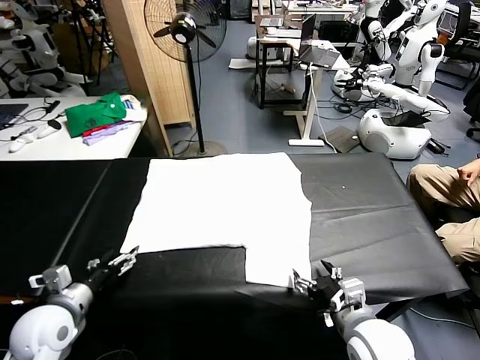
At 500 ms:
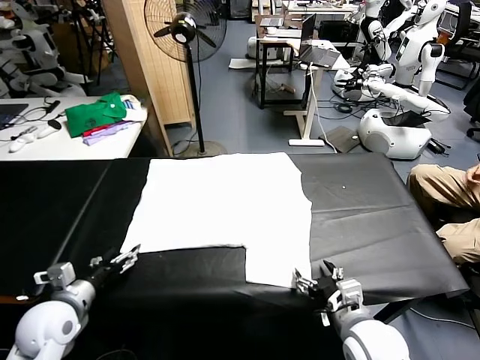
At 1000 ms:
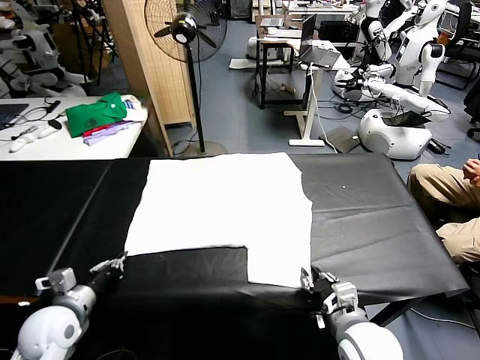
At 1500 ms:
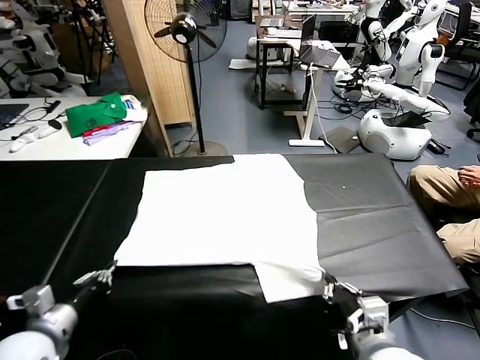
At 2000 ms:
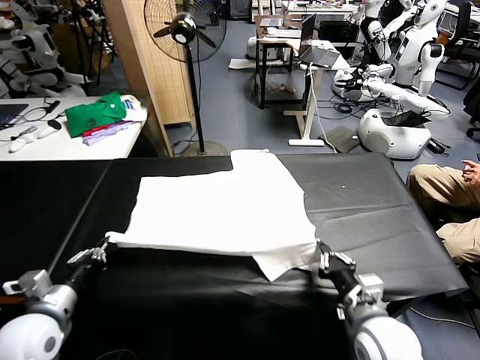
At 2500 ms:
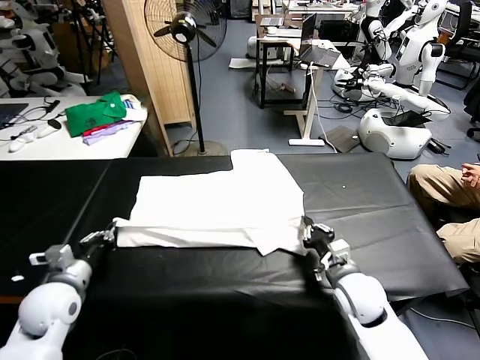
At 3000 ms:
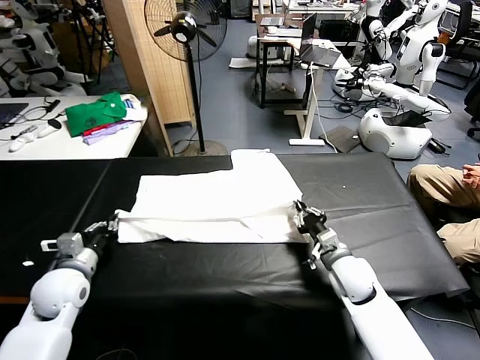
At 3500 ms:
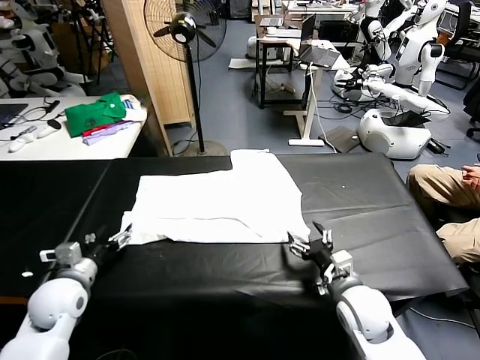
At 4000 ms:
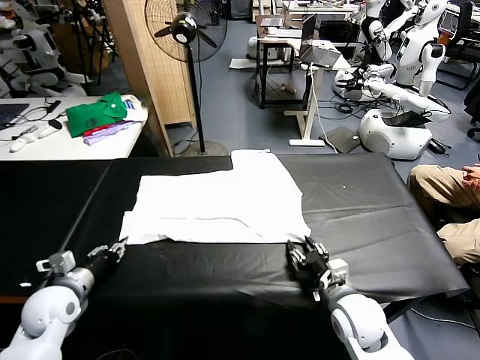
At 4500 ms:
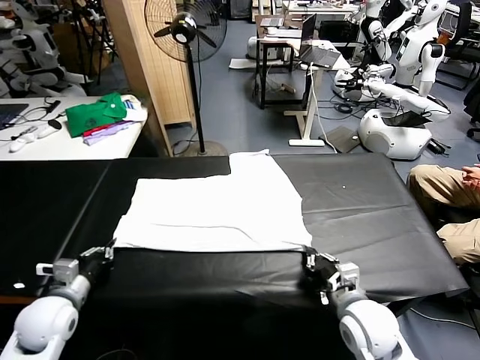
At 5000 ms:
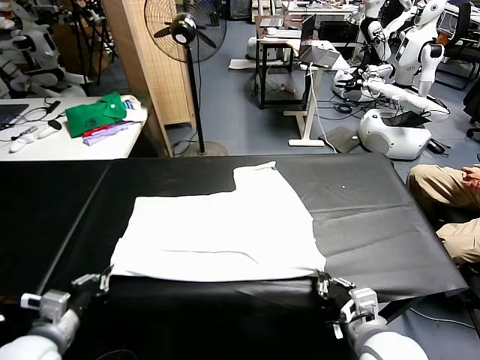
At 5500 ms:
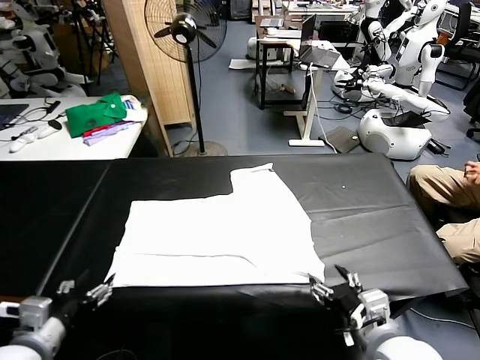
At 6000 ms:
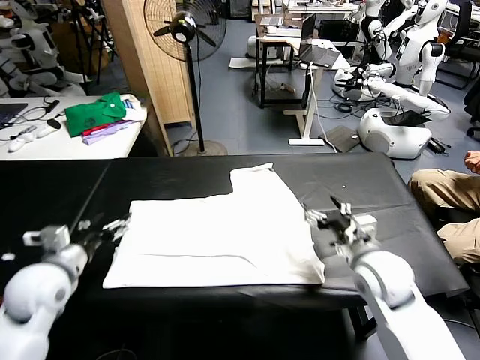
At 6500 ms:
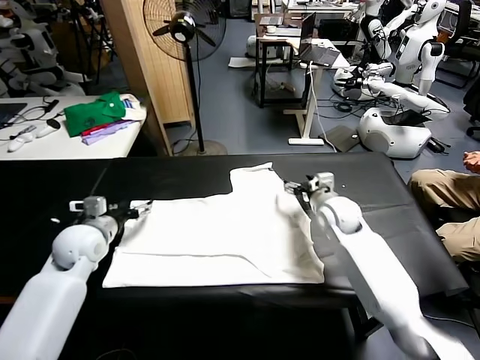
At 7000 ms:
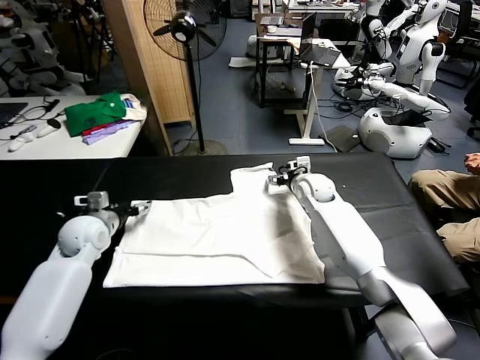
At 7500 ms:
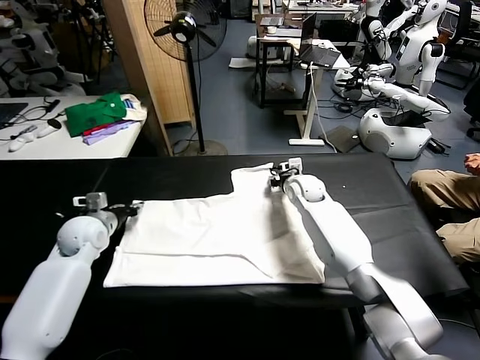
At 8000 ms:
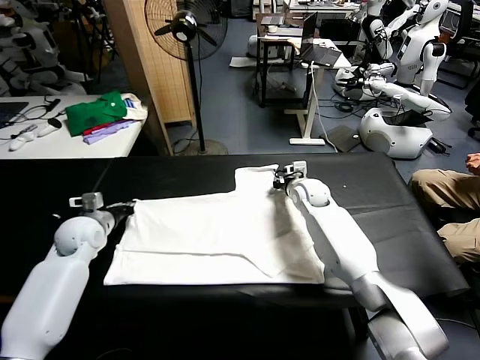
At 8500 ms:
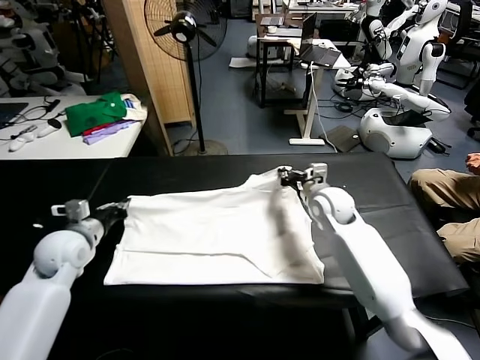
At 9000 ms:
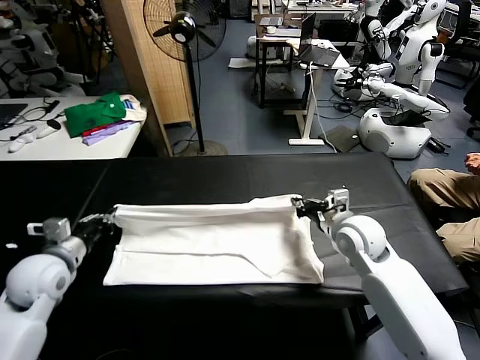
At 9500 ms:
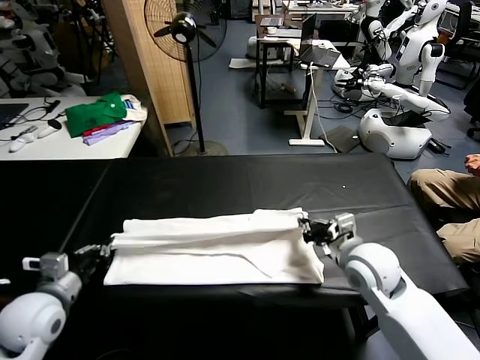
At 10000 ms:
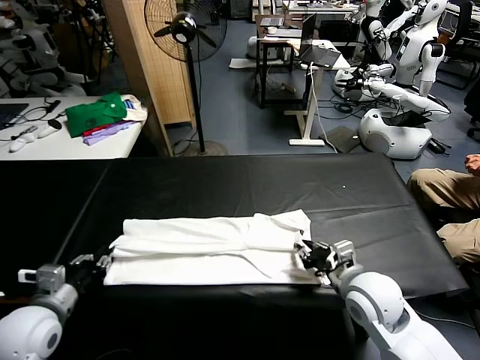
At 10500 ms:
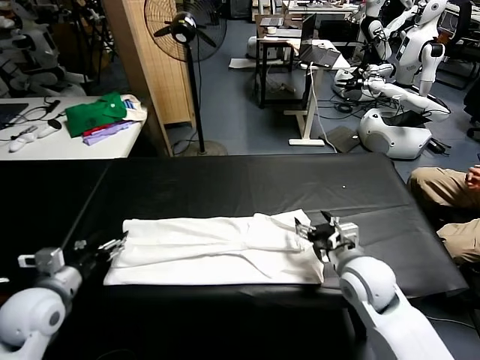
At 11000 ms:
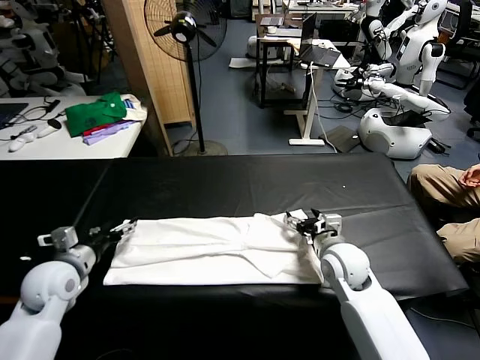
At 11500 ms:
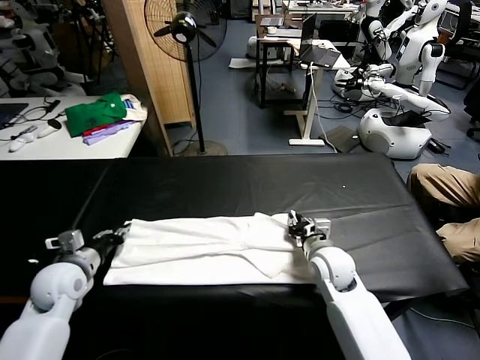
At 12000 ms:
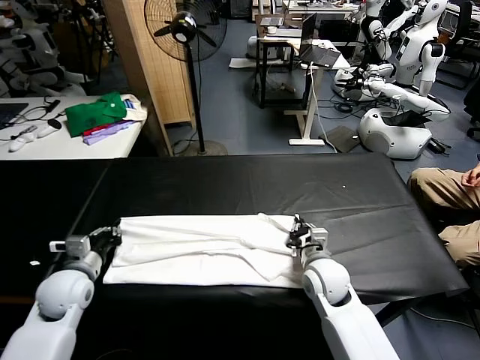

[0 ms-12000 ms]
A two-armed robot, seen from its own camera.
Task of the whole recording: fold and organize the clothes.
Step, 0 ms to 1000 ms: use both grippers simultaneously to clamp the lower edge of the clothing fabric.
Step, 1500 ms to 3000 ms: use both grippers to drag the lower edge of the fabric forward and fold it over the upper edge.
Step, 3500 ms to 5000 ms: Drag the clothes downward with both gripper.
Step, 5500 ms to 7500 ms: use both grippers simultaneously to clamp the upper edge of the clothing fabric.
Step, 8000 ms to 10000 ms: use both grippers to drag the upper edge of the fabric backward and fold it over the lower edge.
2000 ms to 4000 ms: The right gripper moves about 10 cm forward and comes back, and opens, then closes again. The left gripper is displaced forward by roughly 5 cm, and opens, then closes again.
4000 ms to 6000 ms: The left gripper moves upward, roughly 10 cm, moves about 10 cm backward and comes back, and opens up. Meanwhile the right gripper goes roughly 15 cm forward and upward, and opens.
6000 ms to 8000 ms: The left gripper heads forward and downward, covering approximately 15 cm, and closes its fingers; the right gripper shifts about 20 cm forward, and closes up.
8000 ms to 10000 ms: Both grippers travel together backward, approximately 25 cm. The right gripper opens its fingers.
10000 ms to 12000 ms: The right gripper goes approximately 10 cm downward, forward and to the left, and closes. The left gripper shifts some 10 cm forward, and opens, then closes once more.

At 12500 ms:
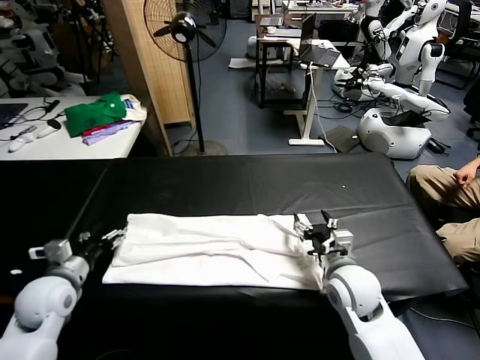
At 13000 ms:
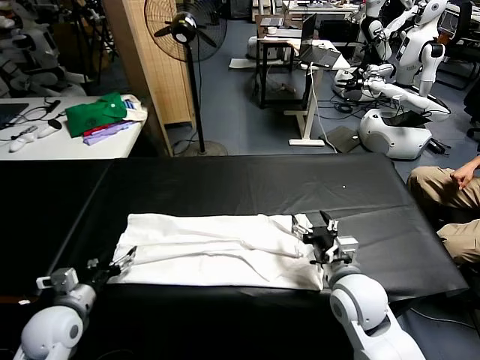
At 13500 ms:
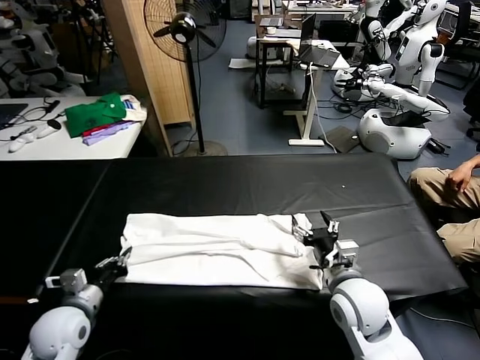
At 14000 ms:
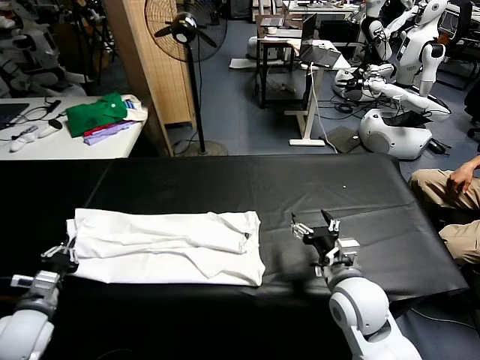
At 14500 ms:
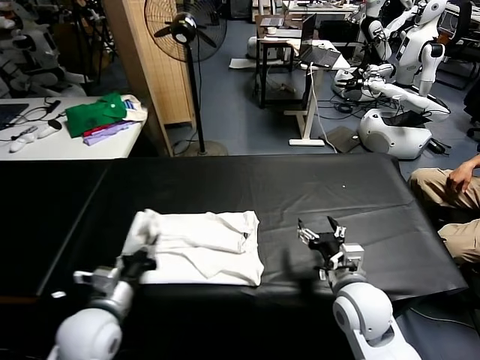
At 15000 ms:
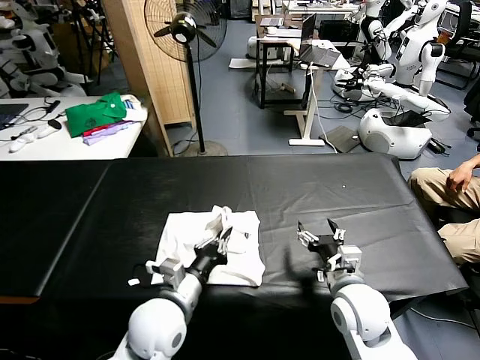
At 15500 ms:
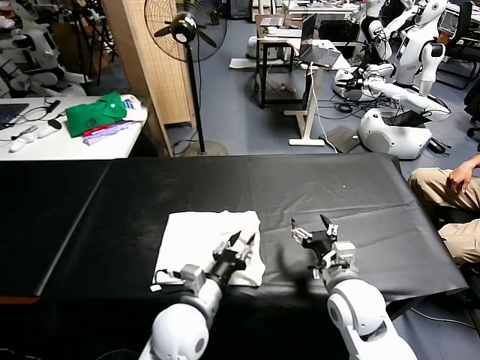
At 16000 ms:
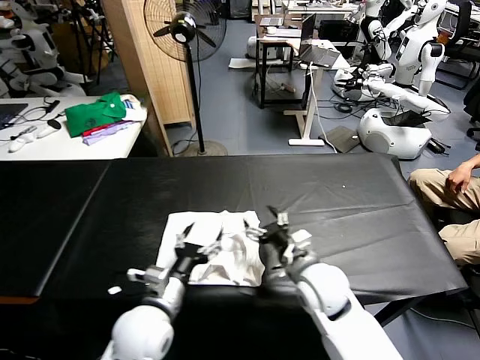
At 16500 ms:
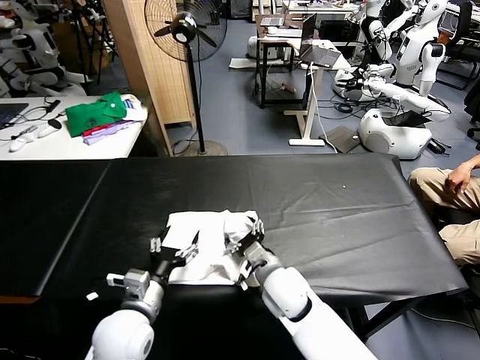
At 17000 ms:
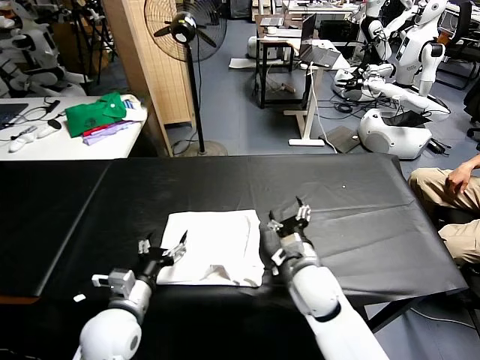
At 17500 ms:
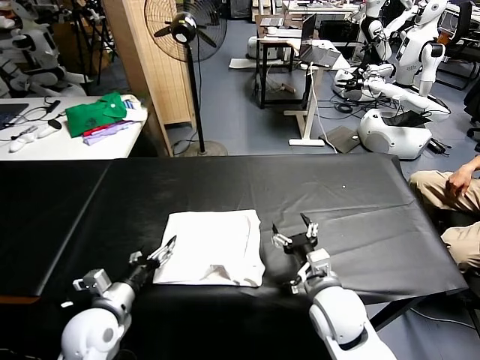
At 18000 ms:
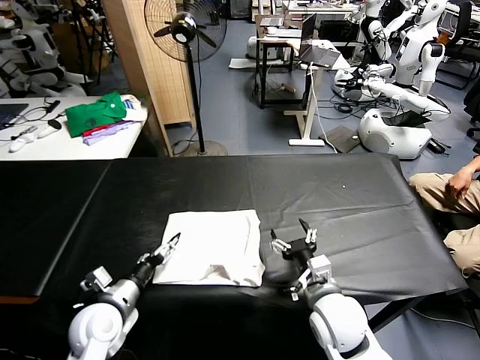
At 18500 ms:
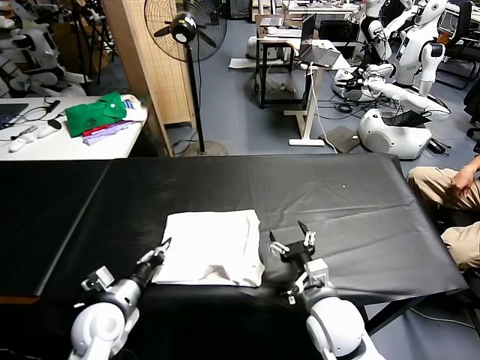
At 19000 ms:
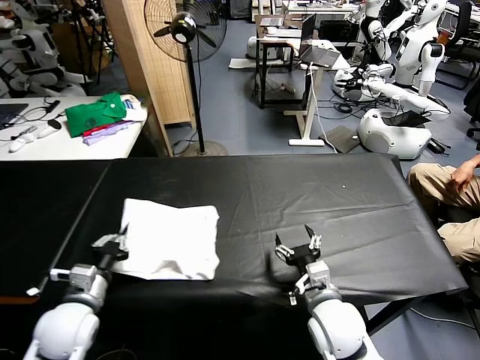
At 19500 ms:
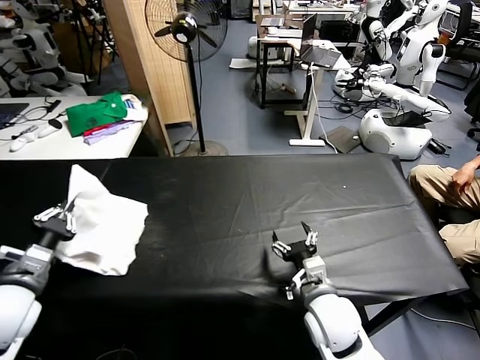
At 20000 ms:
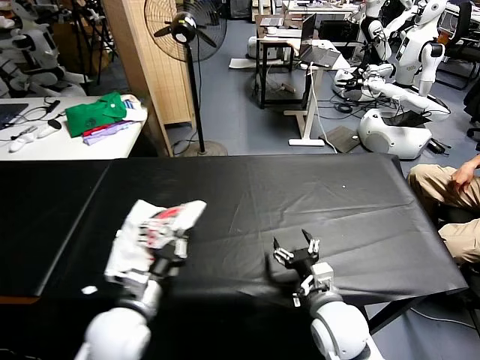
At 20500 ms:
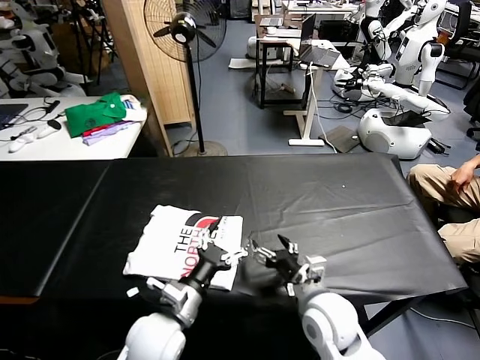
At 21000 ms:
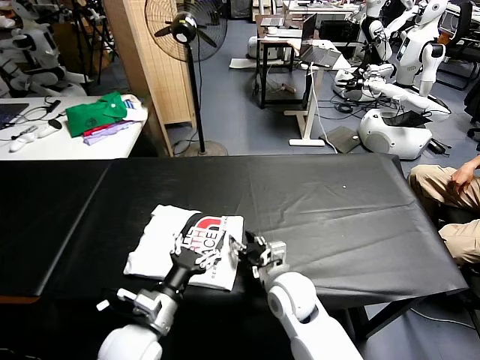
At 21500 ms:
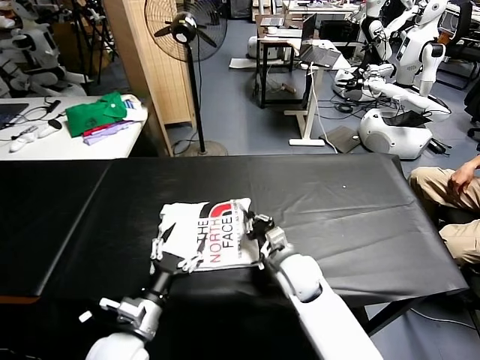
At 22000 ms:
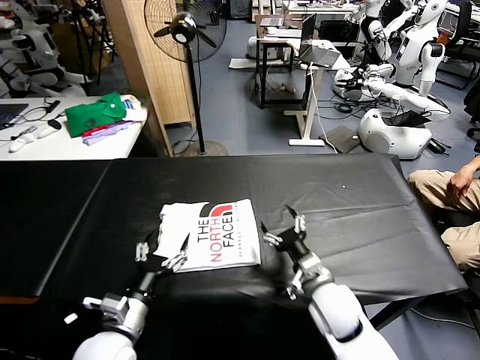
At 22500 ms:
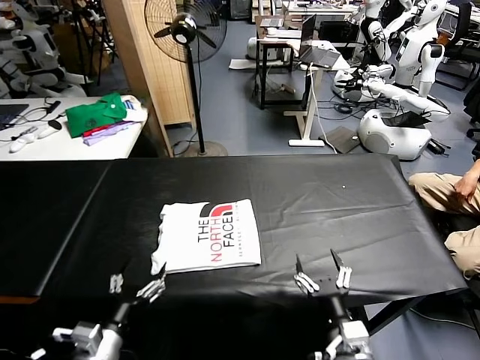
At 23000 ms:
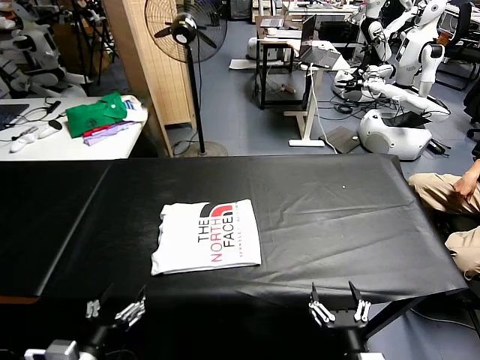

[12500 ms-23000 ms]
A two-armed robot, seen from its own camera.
Task of the whole recording: fold and organize the clothes.
Step, 14000 ms to 15500 ms: use the left gripper to drag the left edge of the fabric to the left and folds it over the right edge.
Step, 16000 ms to 20000 ms: Flip the folded clothes over with left gripper.
Step, 20500 ms to 21500 ms: Drag the clothes to the center of the table.
12500 ms to 14500 ms: The left gripper travels to the right and backward by roughly 15 cm, and closes.
14500 ms to 16500 ms: The right gripper moves to the left, roughly 15 cm. Meanwhile the left gripper goes approximately 5 cm to the right, and opens.
16500 ms to 19000 ms: The left gripper heads to the left, covering roughly 10 cm, and closes its fingers. The right gripper heads to the right and backward, covering some 10 cm.
19000 ms to 21000 ms: The right gripper goes roughly 10 cm to the left and forward; the left gripper goes left and right, about 25 cm each way, reversing 2 times, and opens.
21000 ms to 23000 ms: The left gripper shifts some 15 cm backward and to the left. The right gripper goes some 25 cm backward and to the right, and closes, then opens again.

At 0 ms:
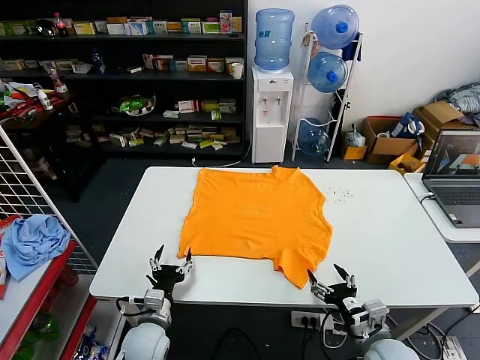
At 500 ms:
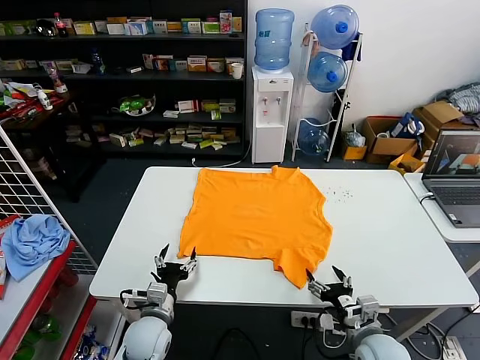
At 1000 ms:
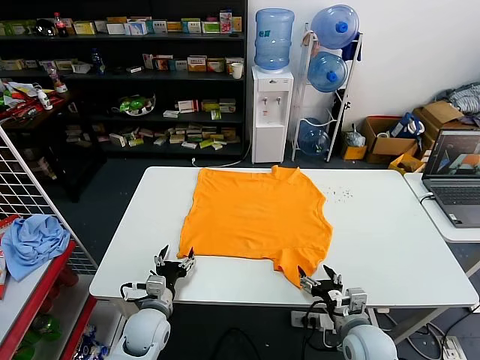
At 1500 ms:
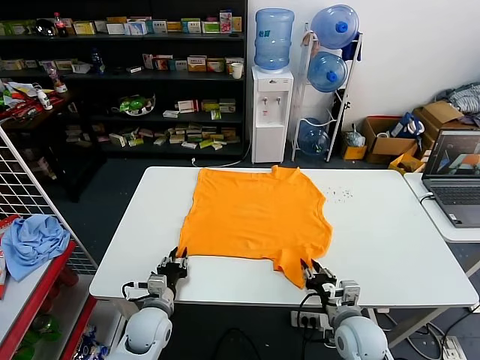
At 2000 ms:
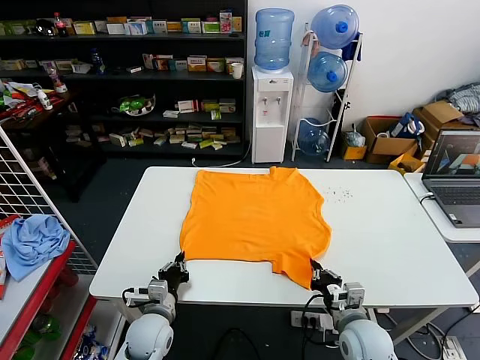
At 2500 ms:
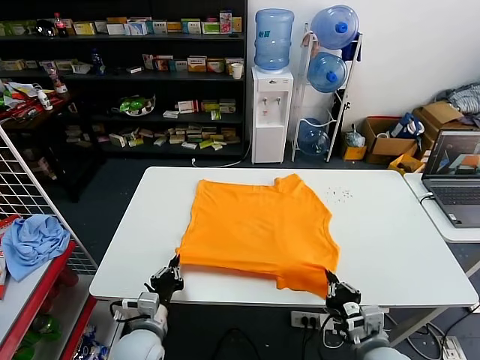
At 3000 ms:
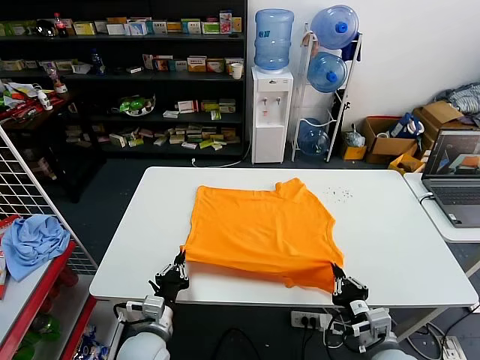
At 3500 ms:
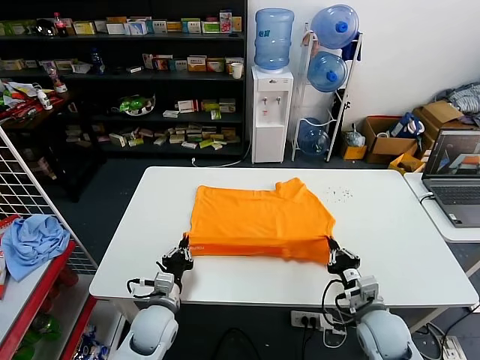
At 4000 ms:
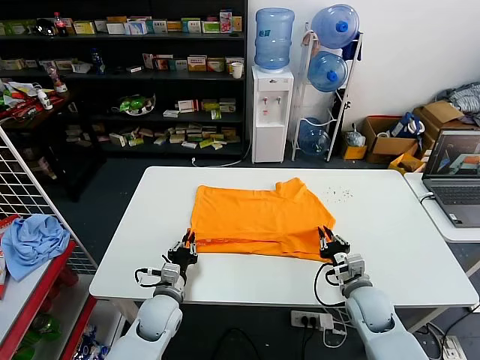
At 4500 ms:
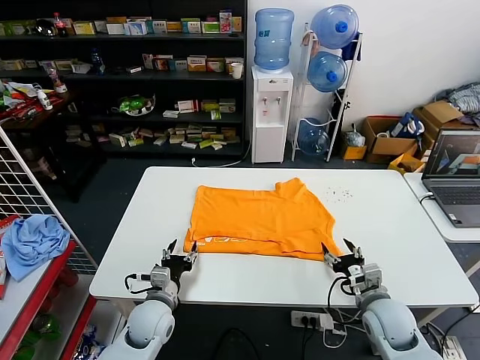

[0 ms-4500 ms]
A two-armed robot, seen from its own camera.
Task of the whole recording: fold and organize the clothes.
Step, 0 ms to 1500 ms: use both grippers simultaneously to clamp the lower edge of the clothing fabric.
Step, 2500 ms to 4000 ms: use both grippers to drag the lower edge of the fabric forward and fold it over the upper edge.
2000 ms to 4500 ms: The right gripper swings forward and backward, about 15 cm each way, with 2 reversals, and opens up, while the left gripper moves approximately 5 cm backward and comes back, and opens up.
